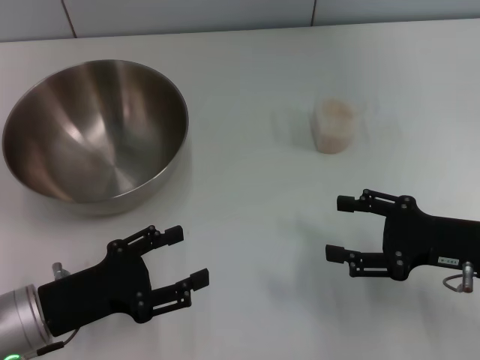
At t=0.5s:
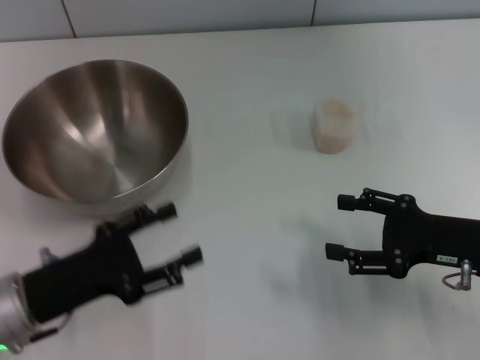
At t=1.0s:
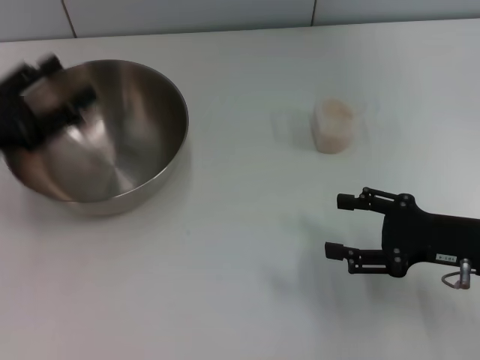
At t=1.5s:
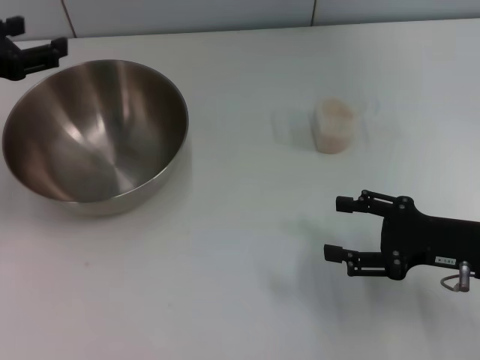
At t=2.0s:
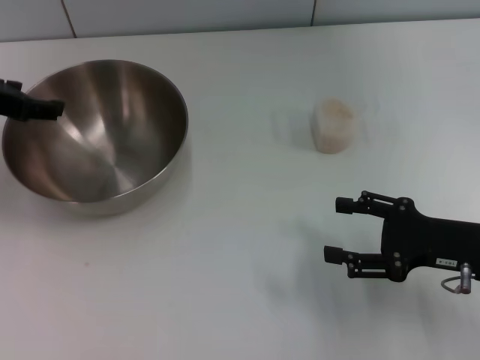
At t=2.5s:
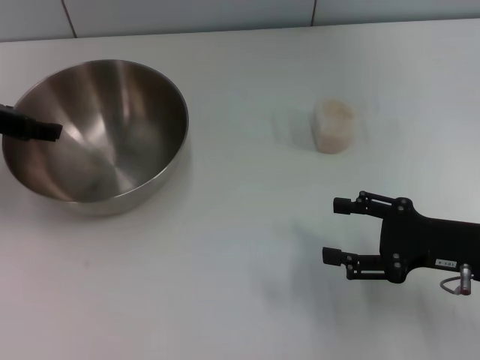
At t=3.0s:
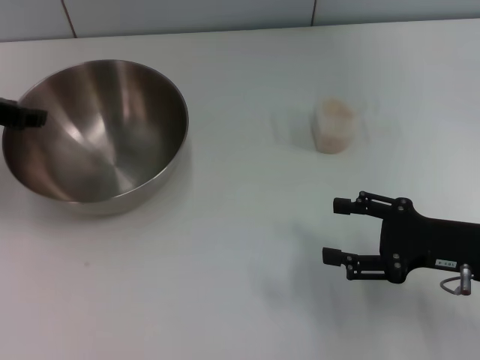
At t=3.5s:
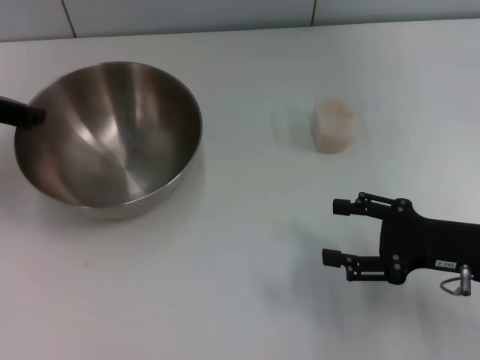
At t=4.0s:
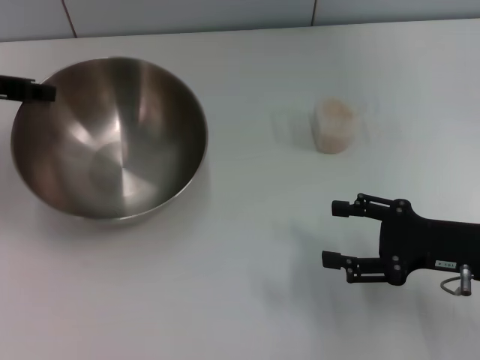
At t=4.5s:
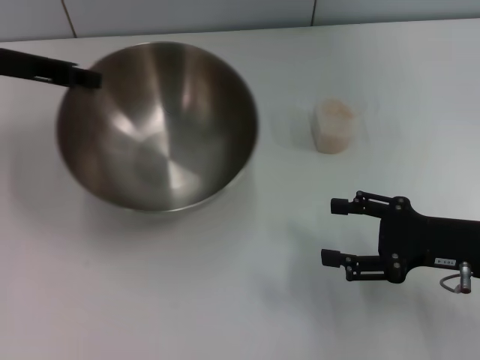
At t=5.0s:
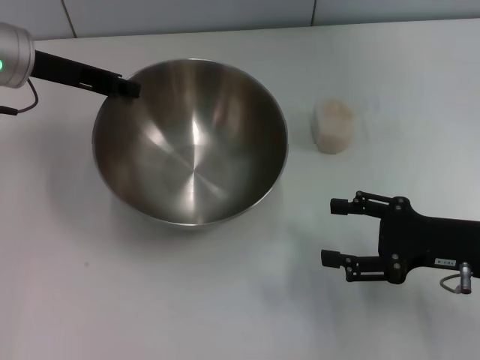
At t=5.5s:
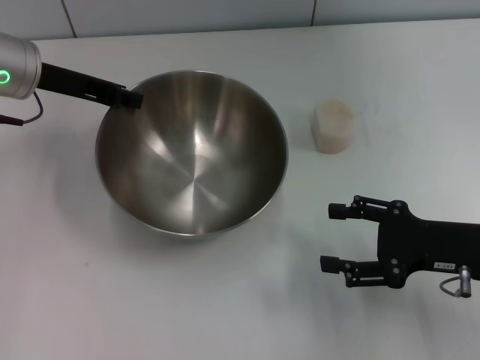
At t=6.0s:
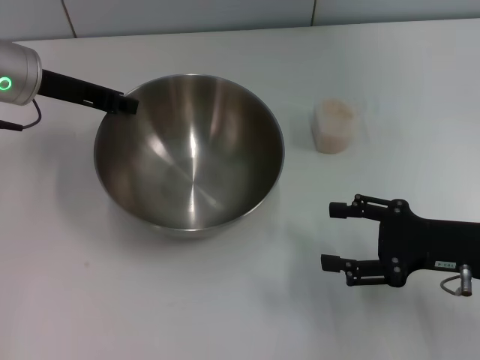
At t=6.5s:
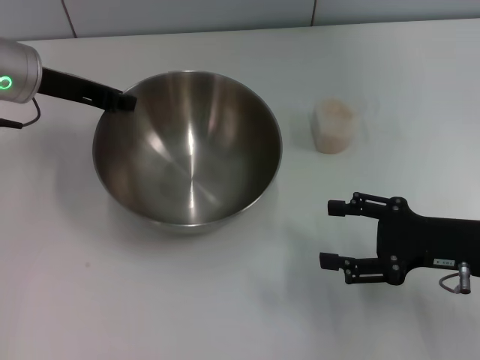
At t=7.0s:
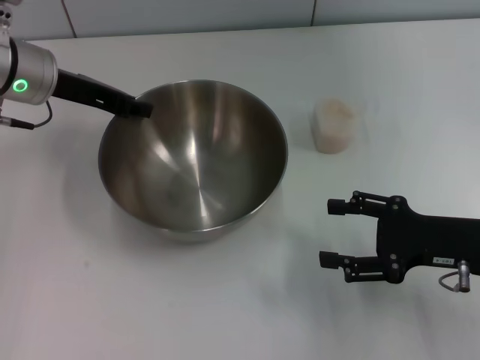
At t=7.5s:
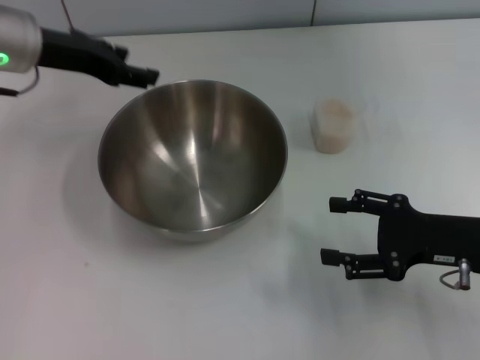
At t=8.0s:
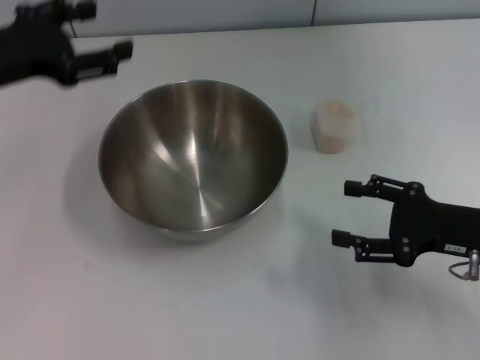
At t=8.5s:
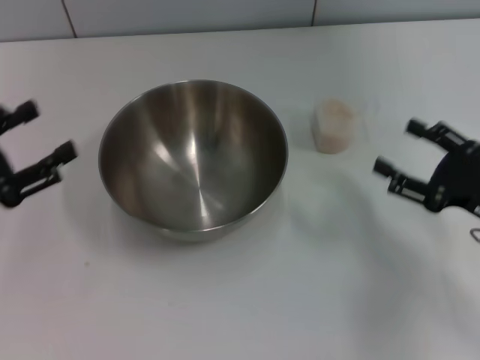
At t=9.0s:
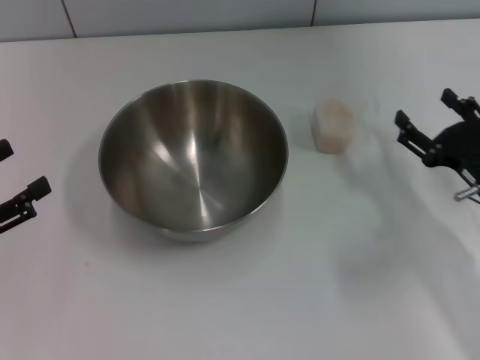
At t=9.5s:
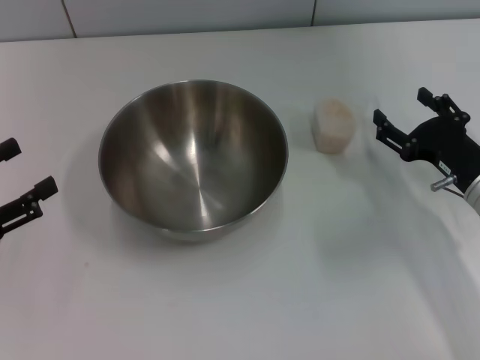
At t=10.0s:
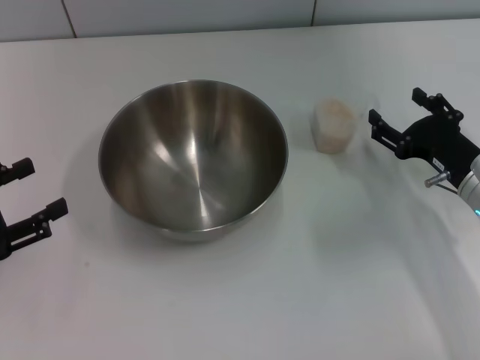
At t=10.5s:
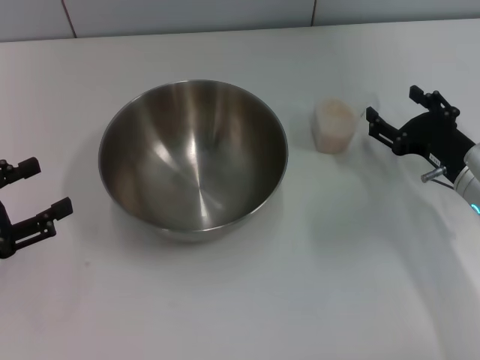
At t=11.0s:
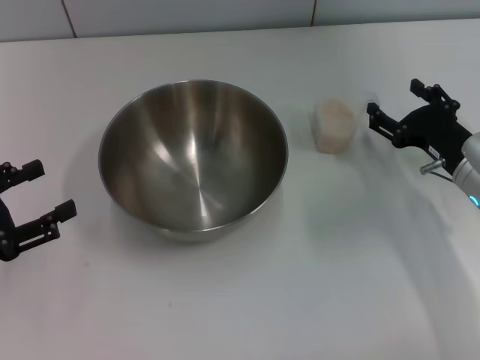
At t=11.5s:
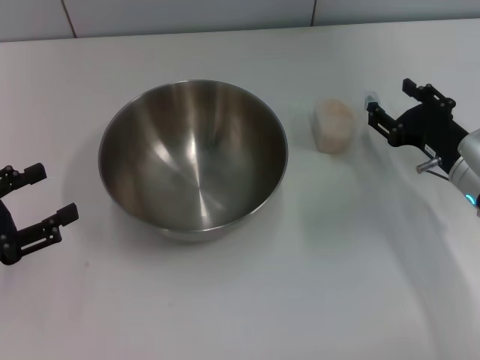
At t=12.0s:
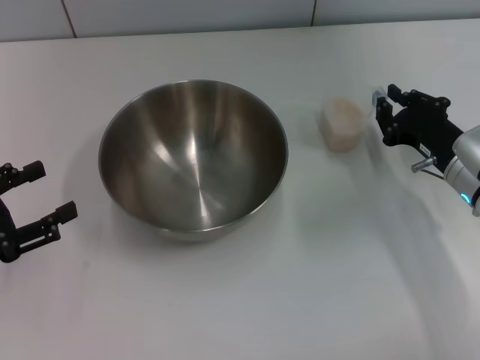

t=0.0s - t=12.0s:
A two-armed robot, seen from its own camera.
Task of the whole recording: Place the bowl in the middle of the table with one hand and pour the rice from the grain cup into it with the other hand.
Step, t=0.0s - t=3.5s: Pick up the bowl with the left gripper.
Step, t=4.0s - t=7.5s: Place the bowl in the center of view with the left gripper.
t=0.0s - t=2.0s: The left gripper travels forward and upward by about 20 cm.
t=2.0s - t=4.0s: The left gripper closes up.
t=4.0s - t=6.0s: The left gripper is displaced to the right by some 10 cm.
t=6.0s - t=8.0s: The left gripper goes about 5 cm backward, and opens its fingers.
t=8.0s - t=10.0s: The right gripper ends up approximately 5 cm from where it was. The left gripper is displaced backward, downward and to the left by roughly 20 cm.
t=10.0s - t=12.0s: The right gripper closes up.

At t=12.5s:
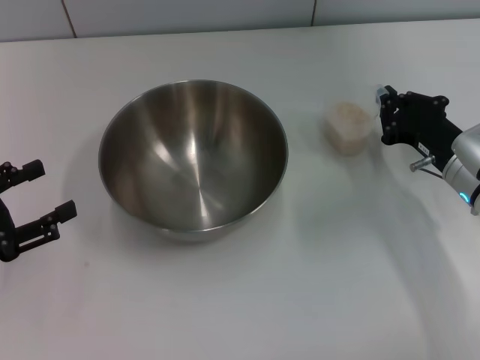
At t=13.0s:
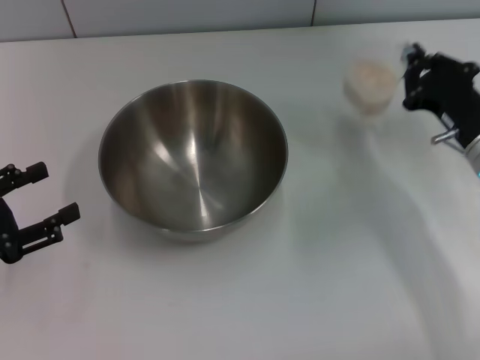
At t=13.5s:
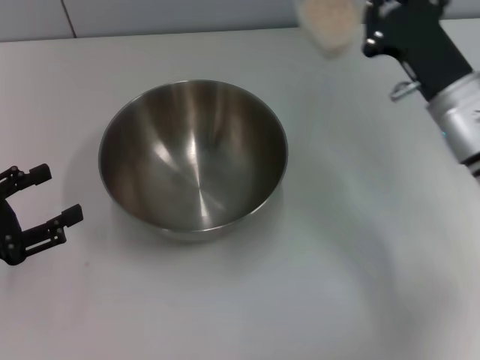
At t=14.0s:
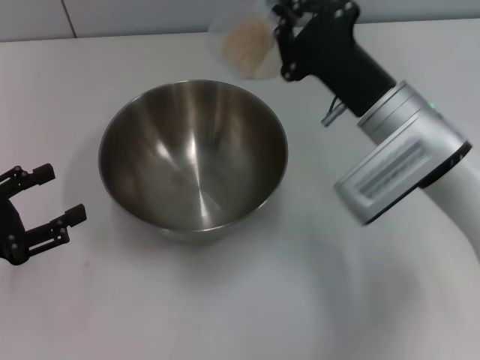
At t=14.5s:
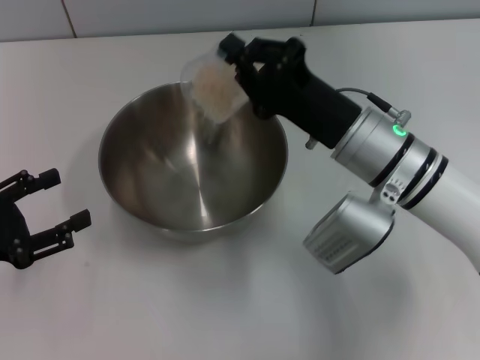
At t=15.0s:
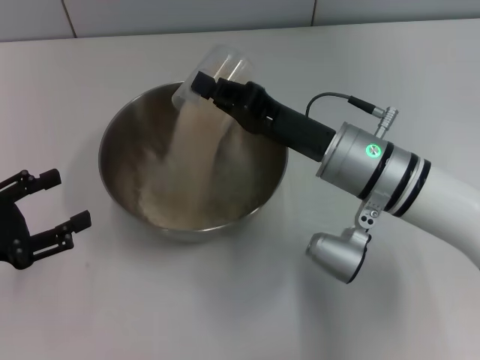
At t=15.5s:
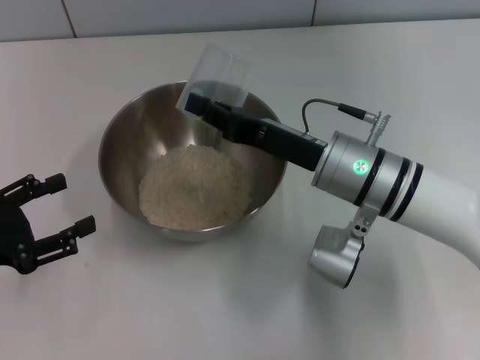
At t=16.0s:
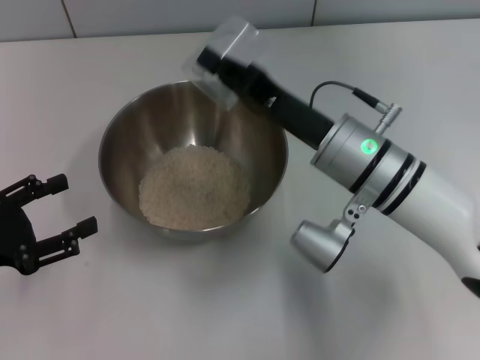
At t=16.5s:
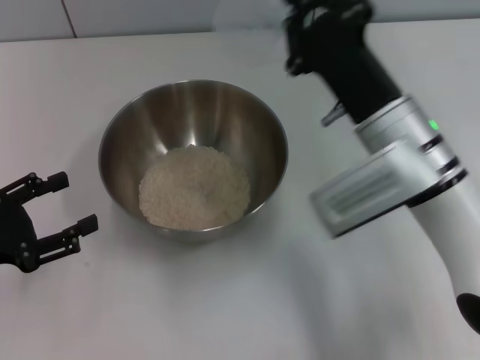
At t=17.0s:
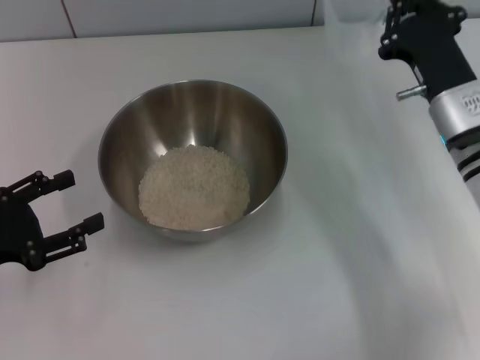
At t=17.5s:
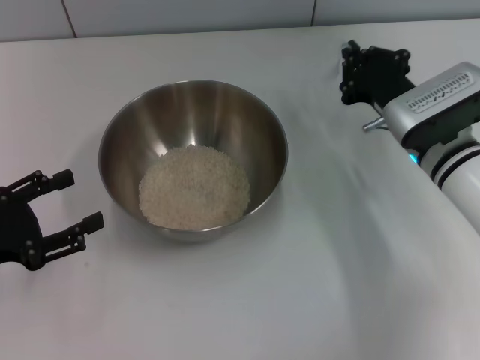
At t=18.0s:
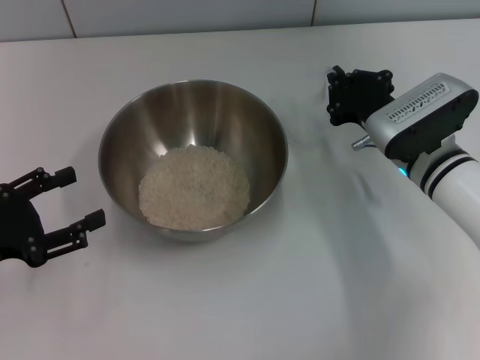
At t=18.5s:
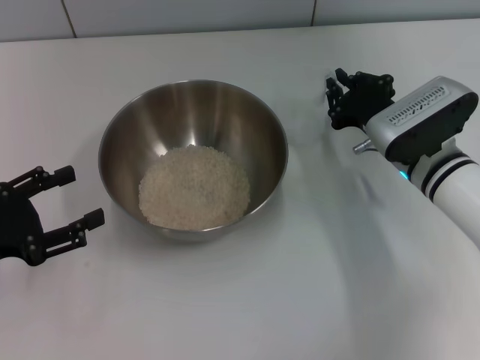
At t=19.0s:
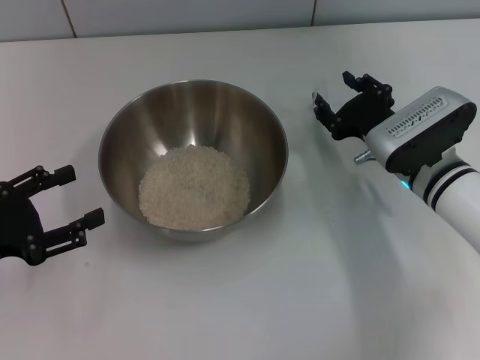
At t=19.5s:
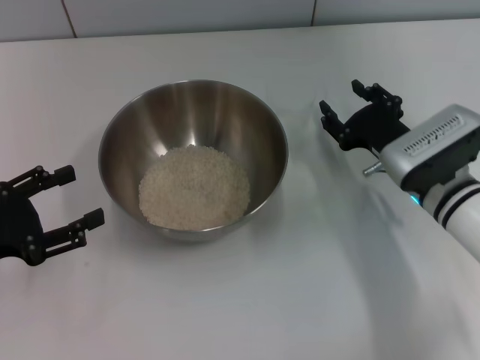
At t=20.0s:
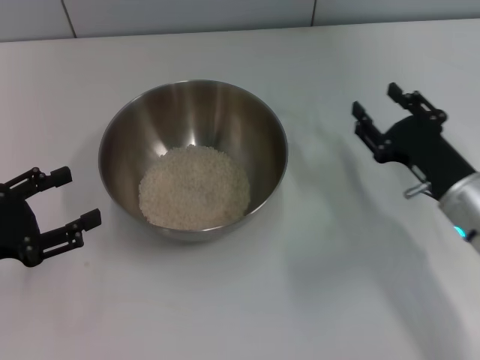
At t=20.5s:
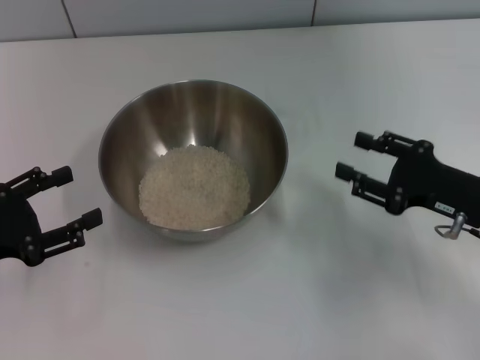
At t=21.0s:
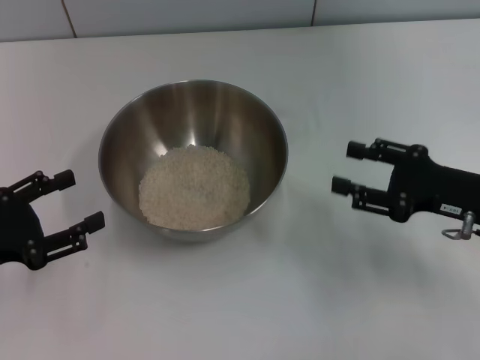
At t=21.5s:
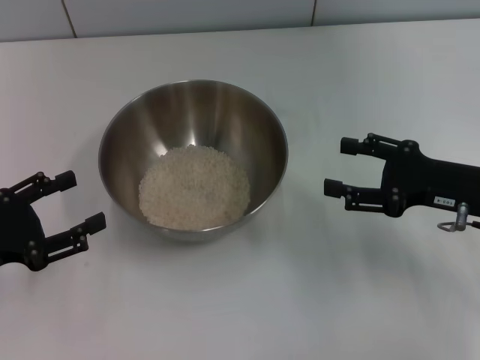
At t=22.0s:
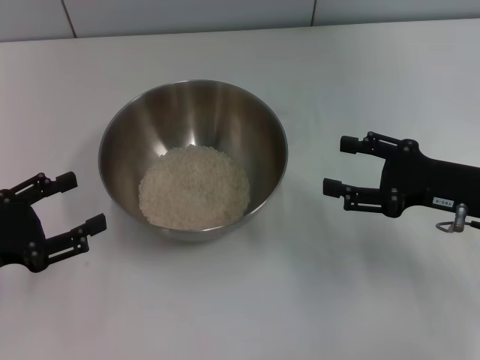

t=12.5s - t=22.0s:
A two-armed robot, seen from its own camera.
Task of the whole recording: Place the bowl in the middle of the table with one hand and pour the rice from the grain cup into it with the other hand.
Step, t=13.5s - t=16.0s: Pour the rice from the cup into the bowl with the right gripper.
Step, t=16.5s - t=19.5s: Place the cup on the table with the right gripper.
t=12.5s - t=14.5s: The right gripper shifts some 15 cm to the left and upward.
t=16.5s - t=18.0s: The right gripper shifts approximately 10 cm downward and to the right.
t=18.0s - t=20.0s: The right gripper heads backward, covering some 5 cm, and opens its fingers.
t=20.0s - t=22.0s: The right gripper changes place by about 5 cm.

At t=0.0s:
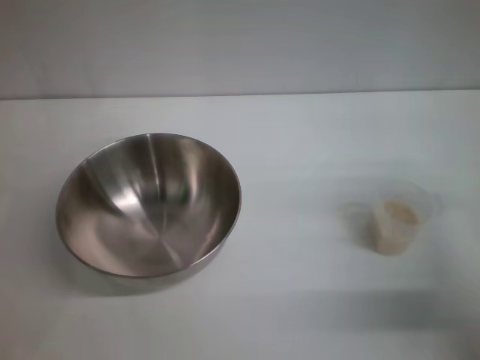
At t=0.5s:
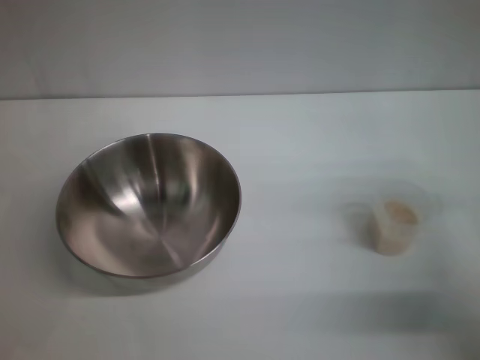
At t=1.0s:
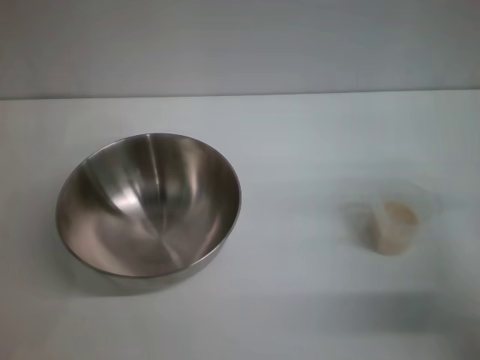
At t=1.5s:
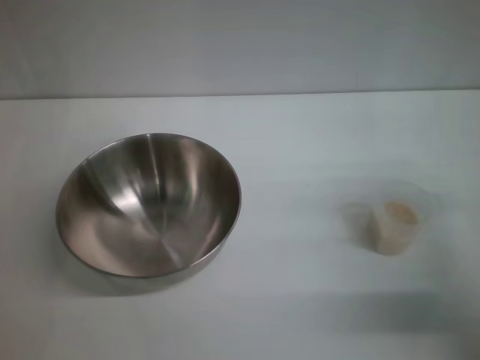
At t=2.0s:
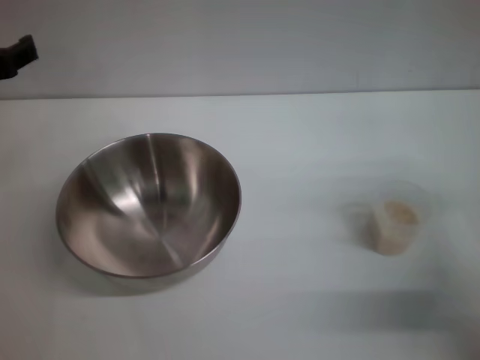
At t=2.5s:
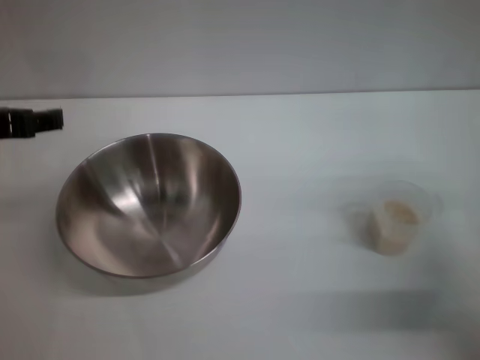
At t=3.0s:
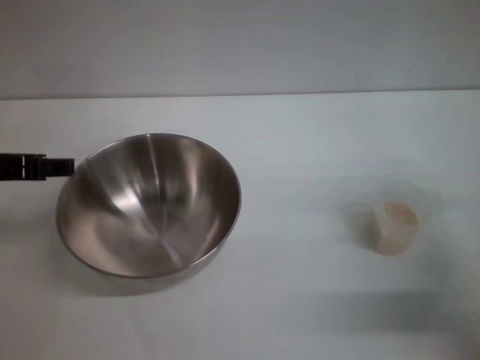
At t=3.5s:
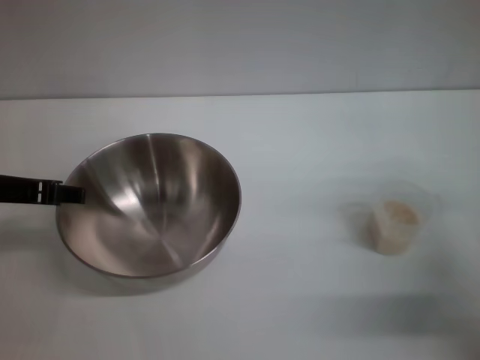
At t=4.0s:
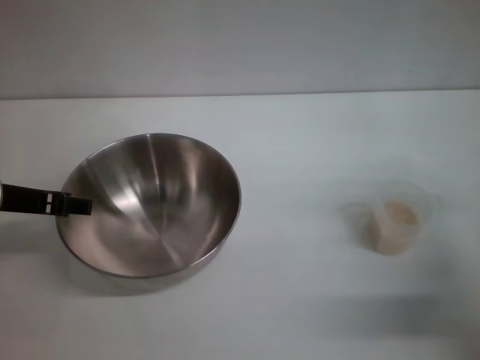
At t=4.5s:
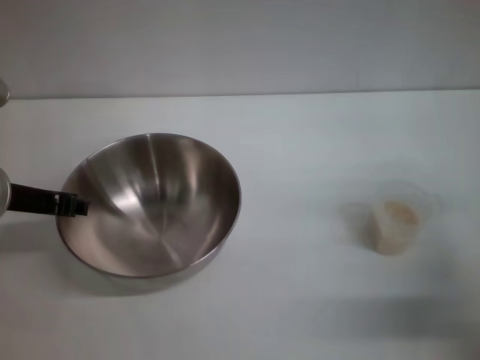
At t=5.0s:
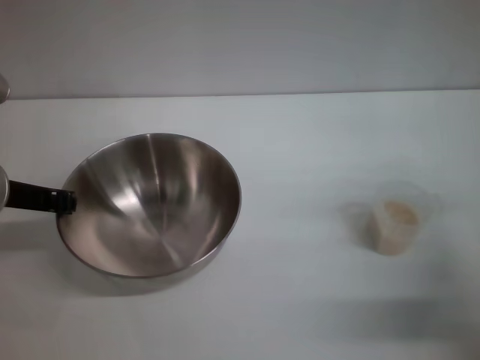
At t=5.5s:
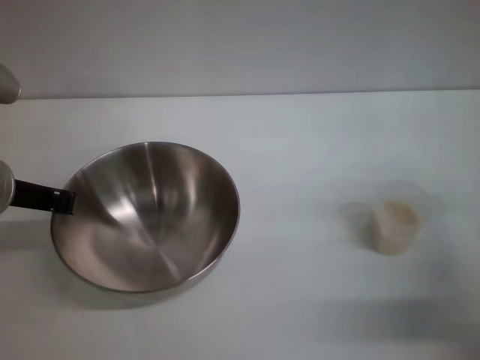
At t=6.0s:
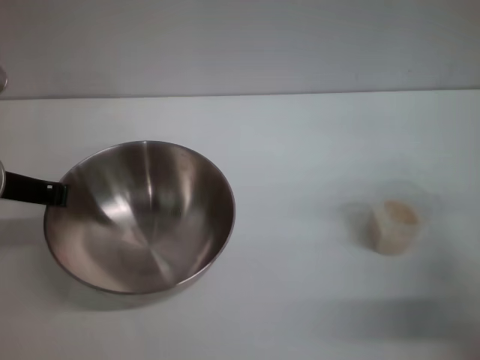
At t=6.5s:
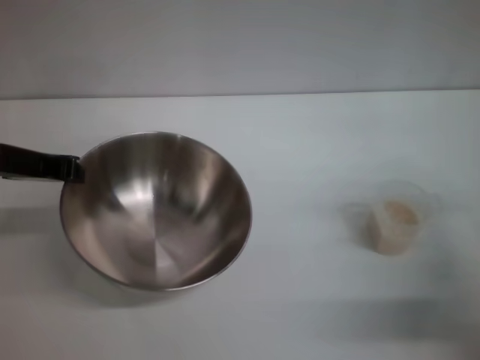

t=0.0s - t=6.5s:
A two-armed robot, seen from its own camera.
Task of the whole recording: Place the bowl in the middle of the table with one hand and pour the rice from the grain cup into it with the other hand.
t=0.0s - t=2.0s: The left gripper is displaced upward by about 10 cm.
t=4.5s - t=6.5s: The left gripper closes its fingers.
